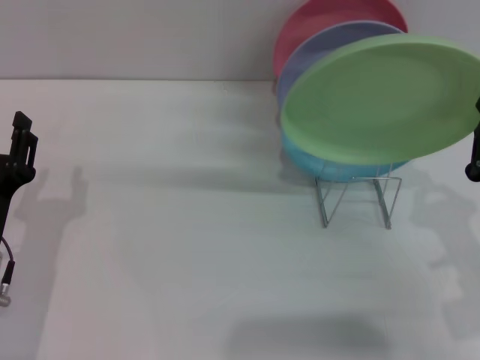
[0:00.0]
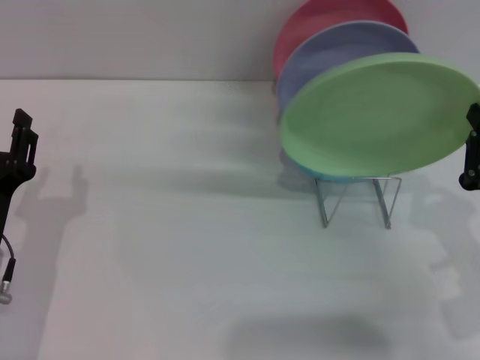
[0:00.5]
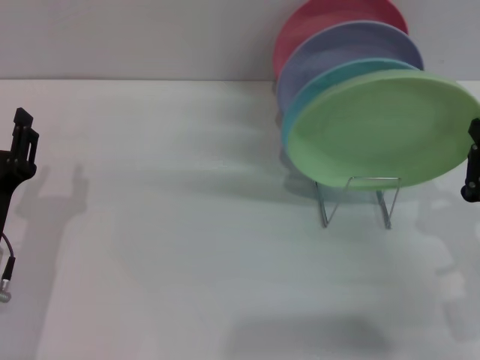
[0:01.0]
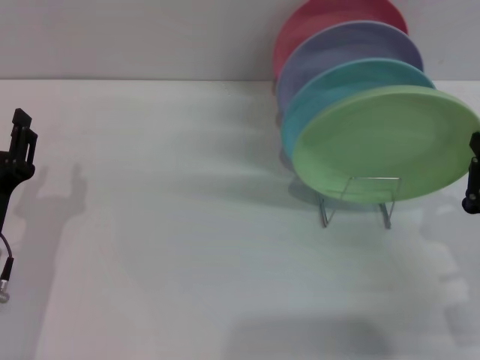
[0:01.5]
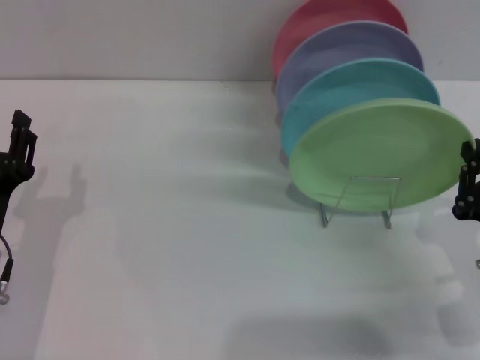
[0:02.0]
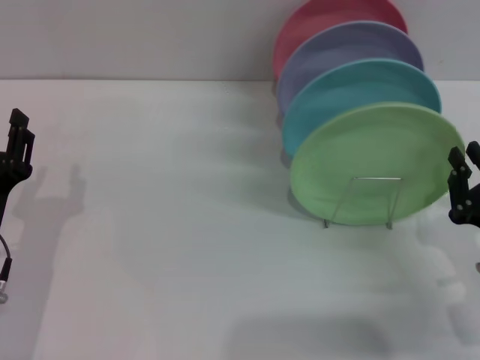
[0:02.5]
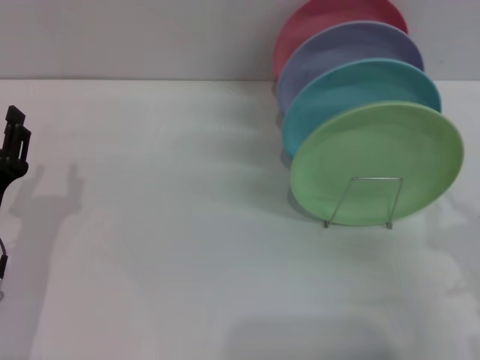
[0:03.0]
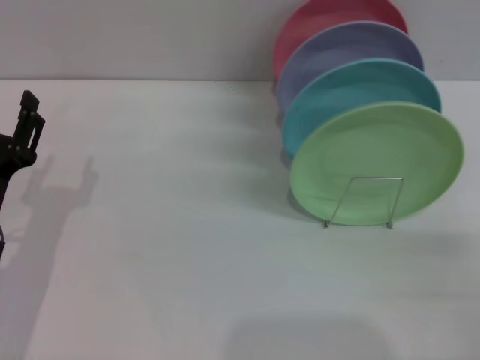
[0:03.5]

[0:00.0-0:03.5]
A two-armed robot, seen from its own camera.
Task of the whole recording: Grip the plate with one hand, pass it to the other, then set it on the shelf.
Step, 0:00.0 to 0:02.5: Place the plate on the shelf with the right gripper.
0:00.0 to 0:02.0: The grippers make only small movements.
0:02.0 to 0:03.5: The right gripper goes approximately 10 cm to the right, and opens its fingers.
